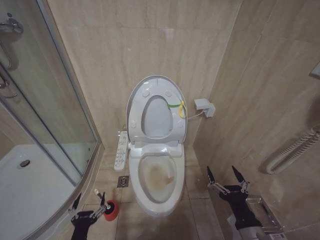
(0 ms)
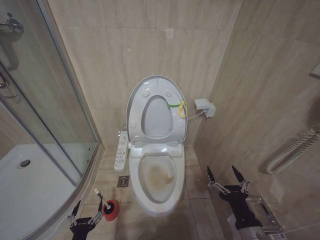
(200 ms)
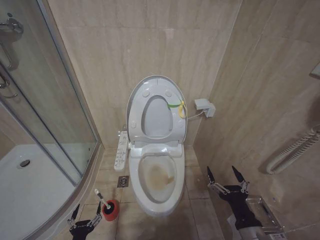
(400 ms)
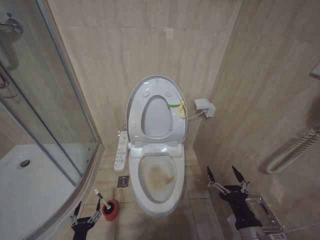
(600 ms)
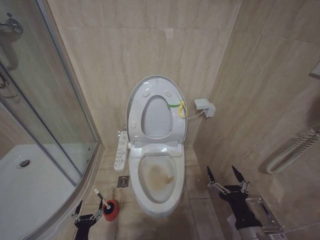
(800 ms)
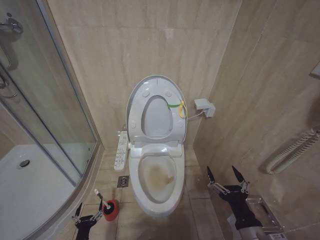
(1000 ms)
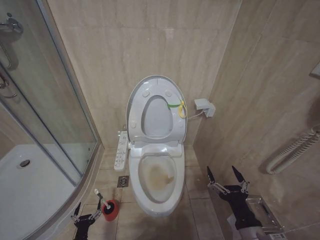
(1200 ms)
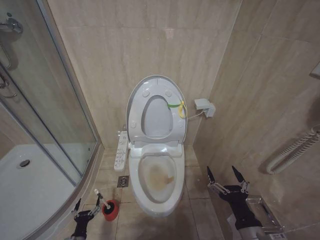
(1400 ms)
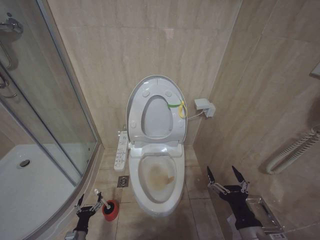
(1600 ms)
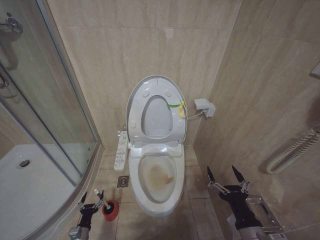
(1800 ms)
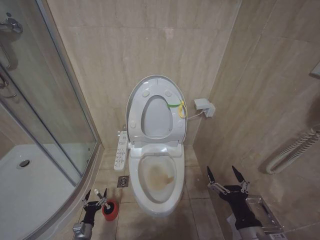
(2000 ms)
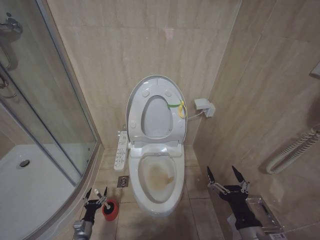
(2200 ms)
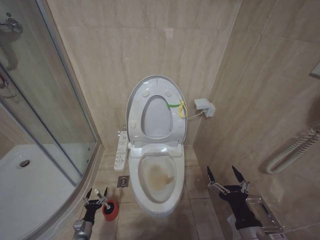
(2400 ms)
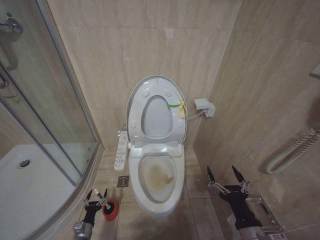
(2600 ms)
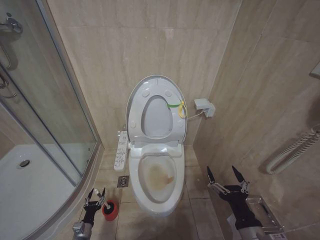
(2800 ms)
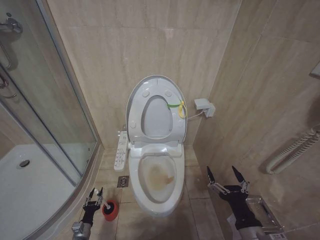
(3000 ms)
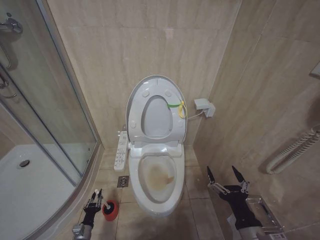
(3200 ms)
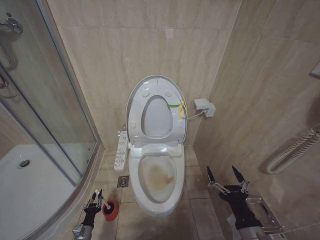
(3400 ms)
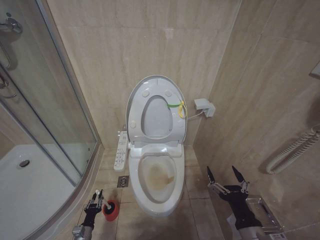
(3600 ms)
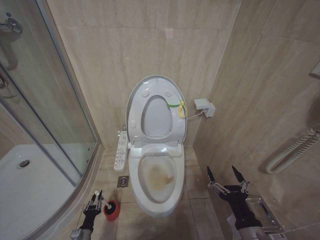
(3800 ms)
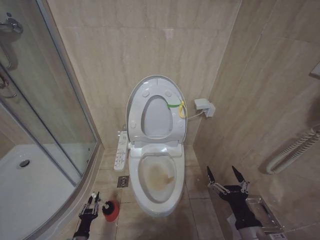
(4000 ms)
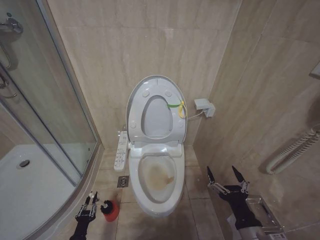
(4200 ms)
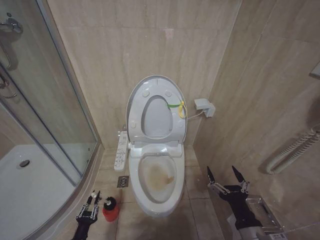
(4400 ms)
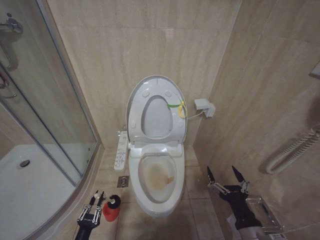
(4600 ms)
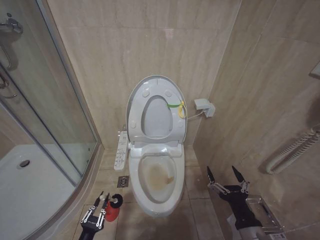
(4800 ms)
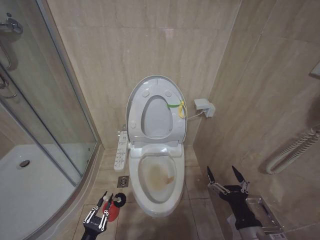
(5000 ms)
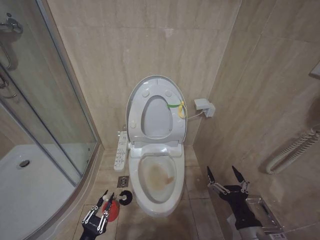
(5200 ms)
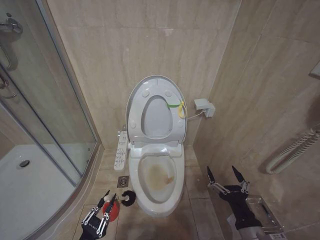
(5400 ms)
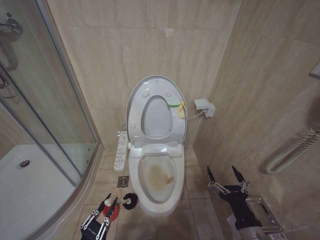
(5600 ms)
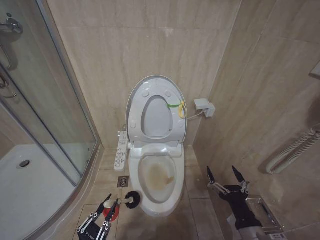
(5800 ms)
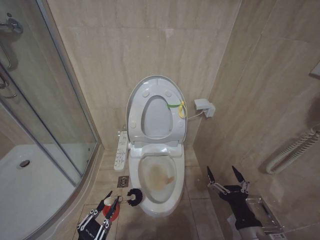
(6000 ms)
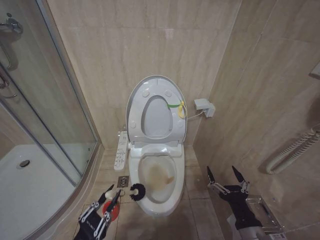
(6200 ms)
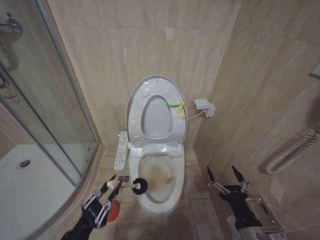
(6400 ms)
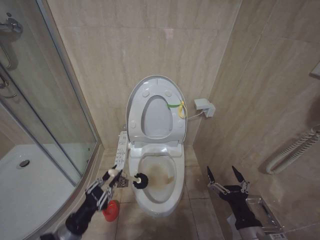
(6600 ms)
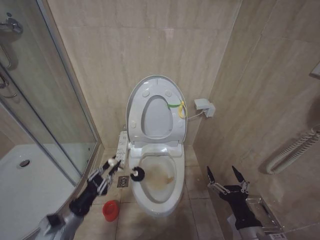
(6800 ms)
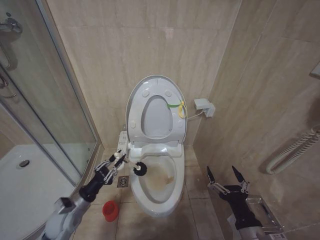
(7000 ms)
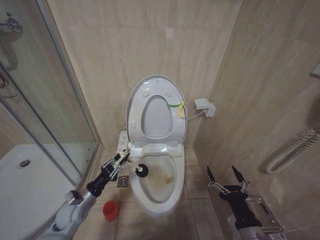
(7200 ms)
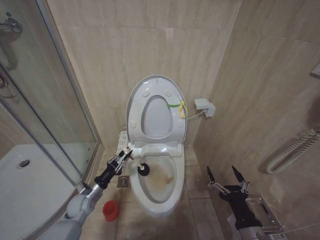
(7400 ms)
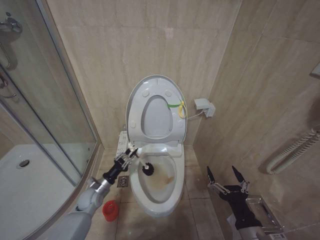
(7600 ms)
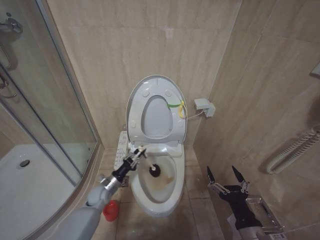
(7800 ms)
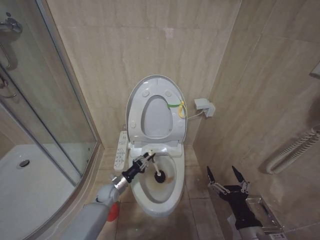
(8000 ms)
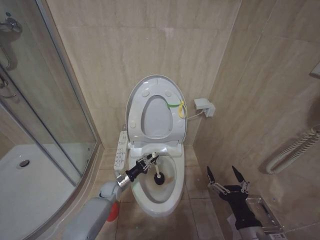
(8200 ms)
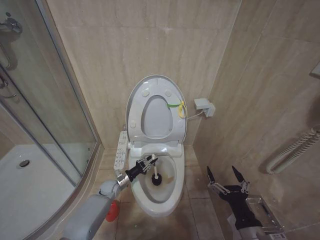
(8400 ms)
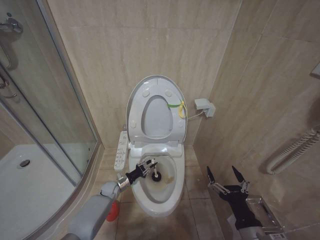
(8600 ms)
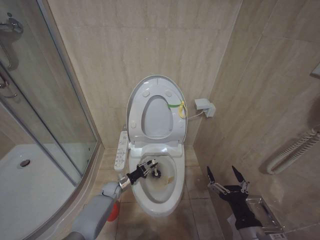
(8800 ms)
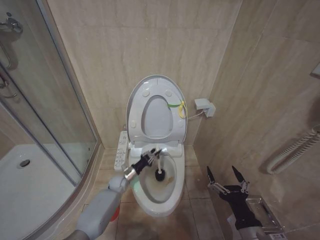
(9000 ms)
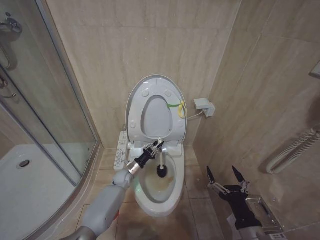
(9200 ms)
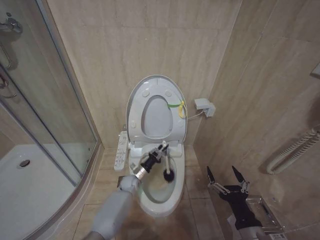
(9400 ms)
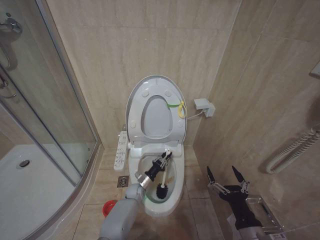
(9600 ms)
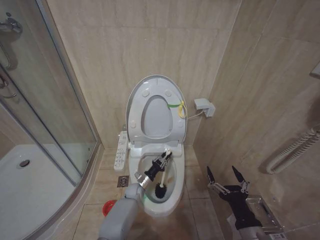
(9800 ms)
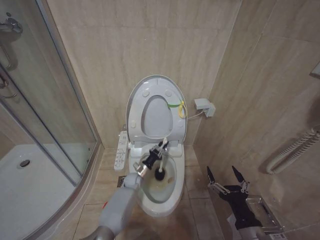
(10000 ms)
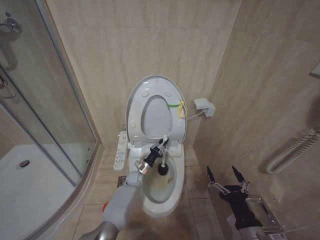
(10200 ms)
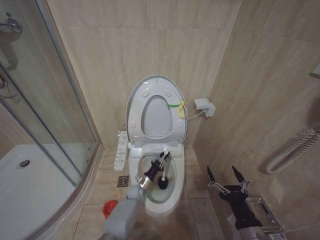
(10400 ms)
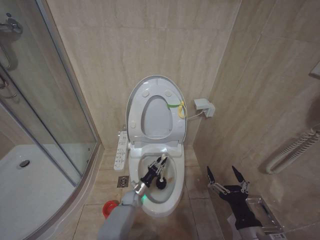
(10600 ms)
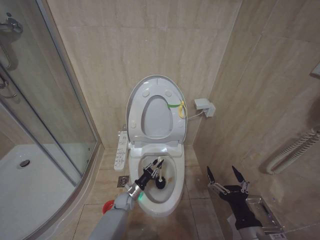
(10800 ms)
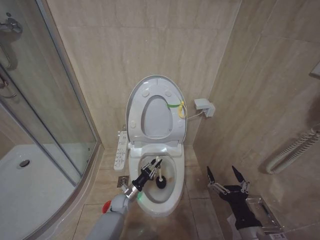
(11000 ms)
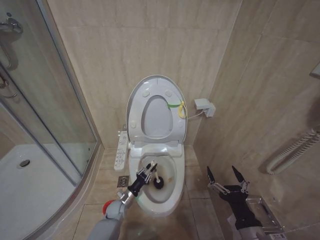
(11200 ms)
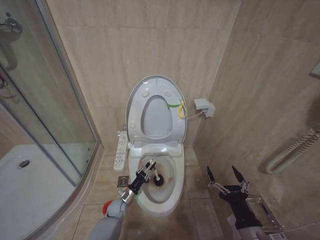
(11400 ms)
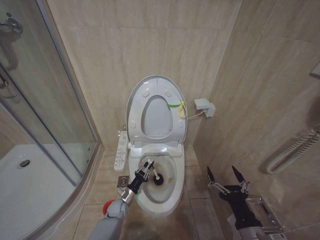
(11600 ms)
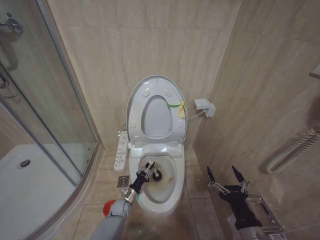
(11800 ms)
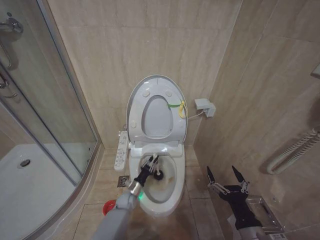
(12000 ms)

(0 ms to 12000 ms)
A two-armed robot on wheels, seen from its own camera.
Task of the whole recording: Open the toilet lid, clean the toilet bowl with a toilet brush, close the toilet lid, and flush.
0 ms - 1600 ms: The left gripper shifts approximately 25 cm downward, to the left and forward.
3000 ms - 4400 ms: The left gripper is displaced backward and upward by some 10 cm, and closes.
4400 ms - 6000 ms: The left gripper shifts approximately 20 cm upward and backward.
6000 ms - 7600 ms: The left gripper goes roughly 30 cm forward.
7600 ms - 9000 ms: The left gripper moves to the right, forward and downward, roughly 15 cm.
9000 ms - 10400 ms: The left gripper heads to the right, covering about 10 cm.
10400 ms - 12000 ms: The left gripper shifts about 10 cm to the left and backward.

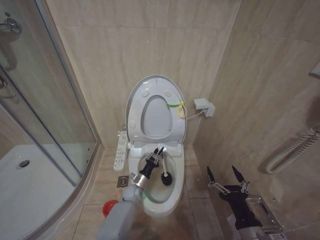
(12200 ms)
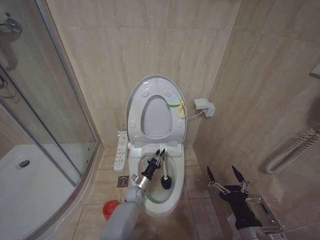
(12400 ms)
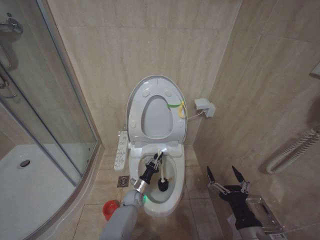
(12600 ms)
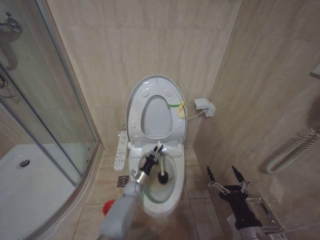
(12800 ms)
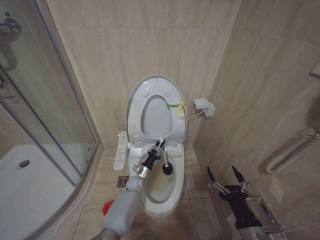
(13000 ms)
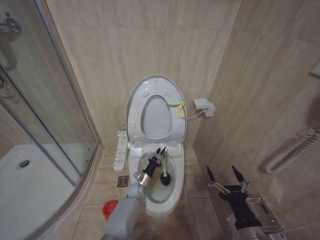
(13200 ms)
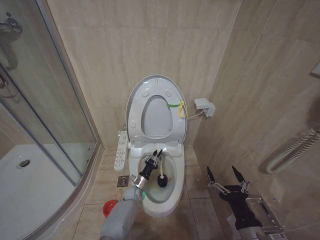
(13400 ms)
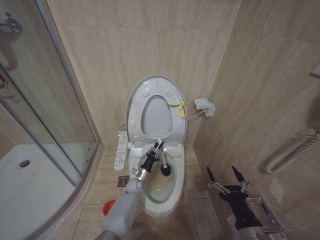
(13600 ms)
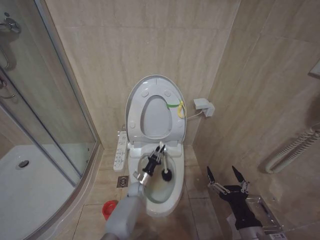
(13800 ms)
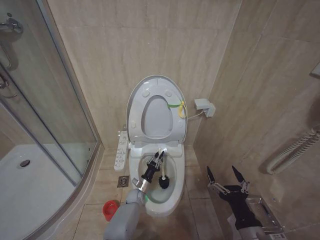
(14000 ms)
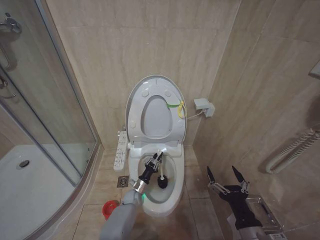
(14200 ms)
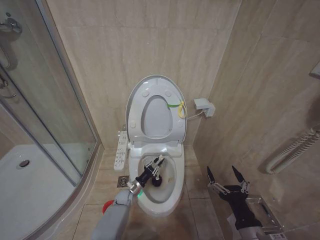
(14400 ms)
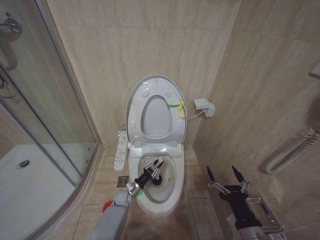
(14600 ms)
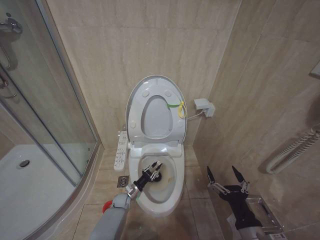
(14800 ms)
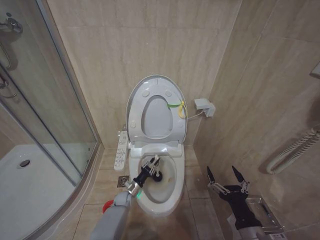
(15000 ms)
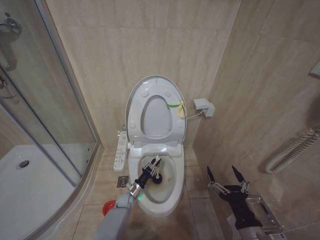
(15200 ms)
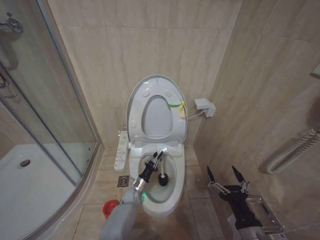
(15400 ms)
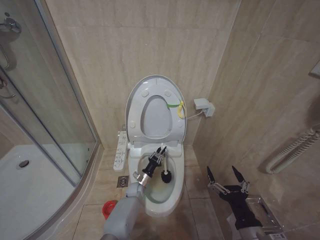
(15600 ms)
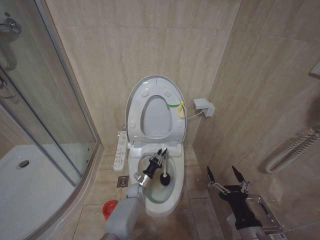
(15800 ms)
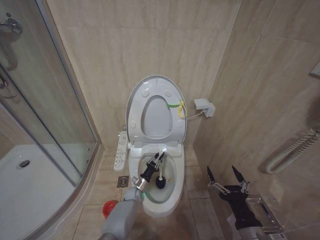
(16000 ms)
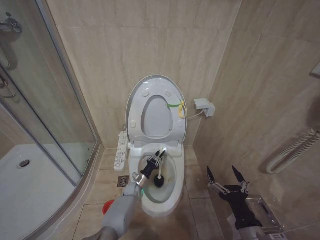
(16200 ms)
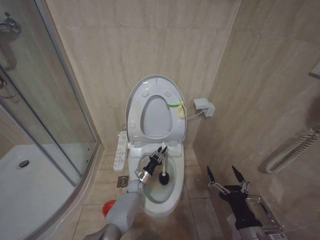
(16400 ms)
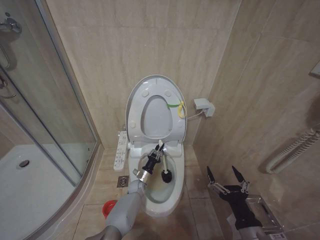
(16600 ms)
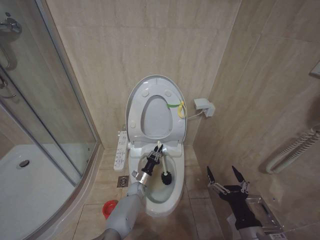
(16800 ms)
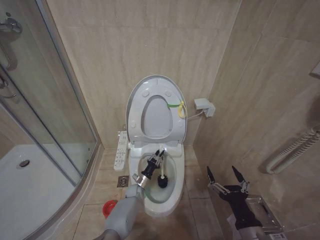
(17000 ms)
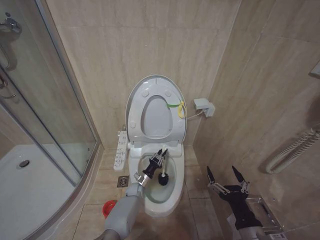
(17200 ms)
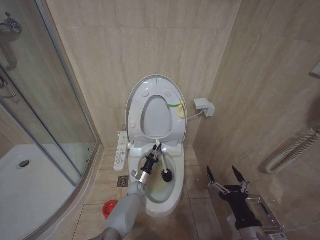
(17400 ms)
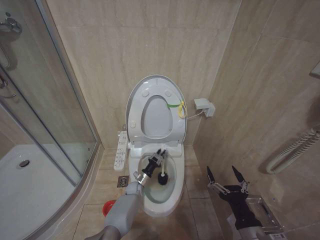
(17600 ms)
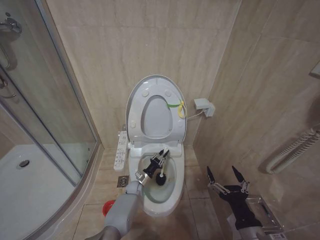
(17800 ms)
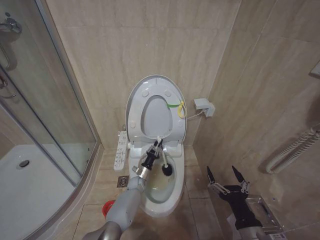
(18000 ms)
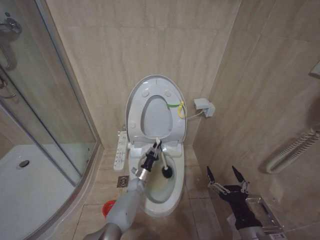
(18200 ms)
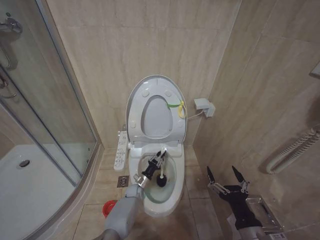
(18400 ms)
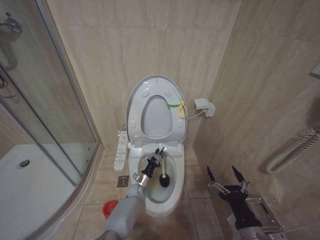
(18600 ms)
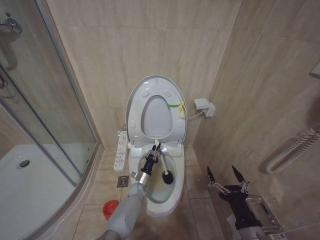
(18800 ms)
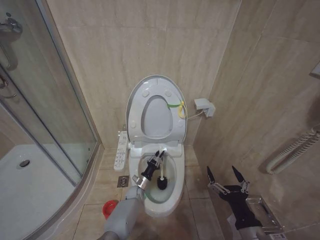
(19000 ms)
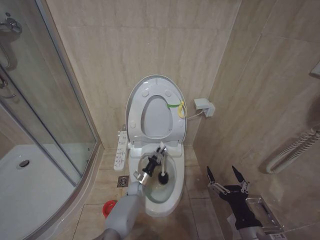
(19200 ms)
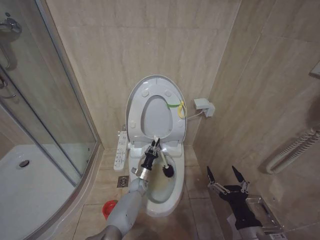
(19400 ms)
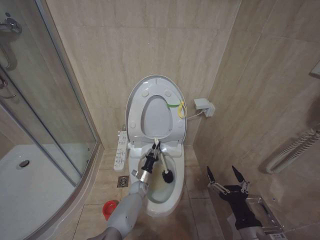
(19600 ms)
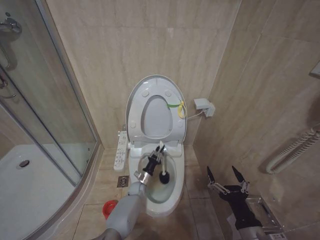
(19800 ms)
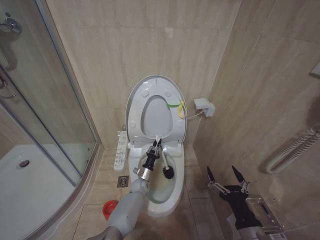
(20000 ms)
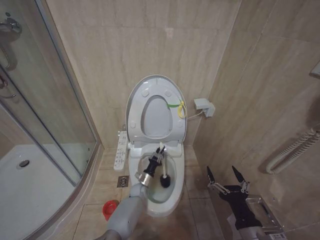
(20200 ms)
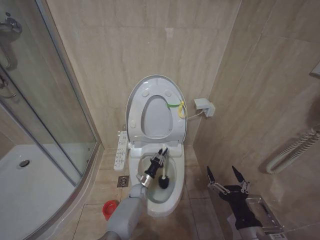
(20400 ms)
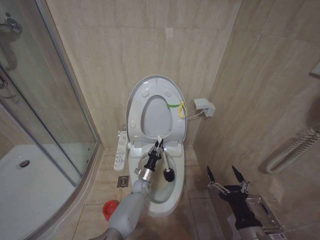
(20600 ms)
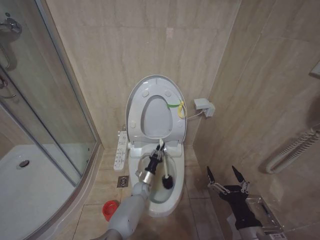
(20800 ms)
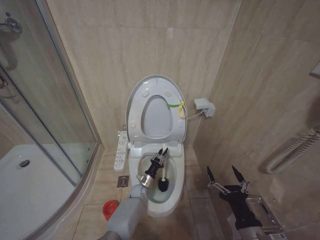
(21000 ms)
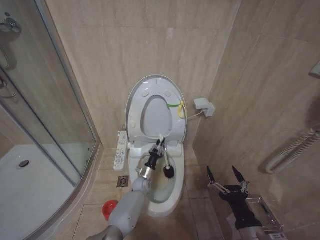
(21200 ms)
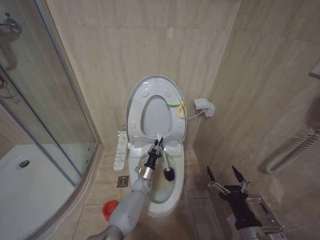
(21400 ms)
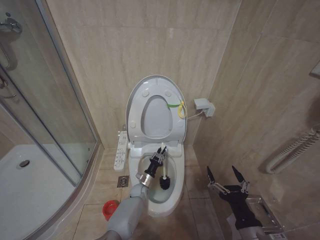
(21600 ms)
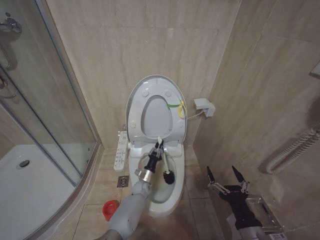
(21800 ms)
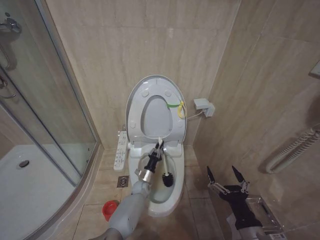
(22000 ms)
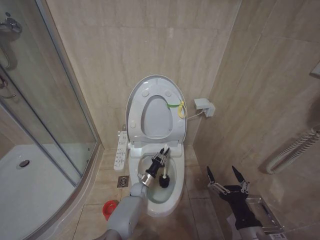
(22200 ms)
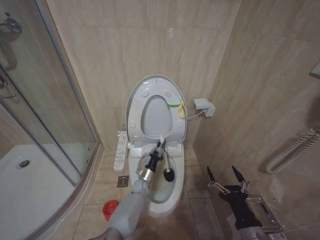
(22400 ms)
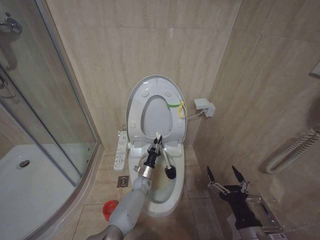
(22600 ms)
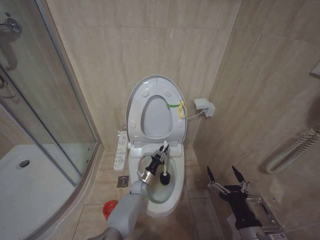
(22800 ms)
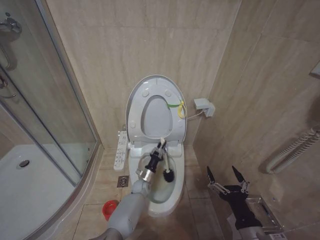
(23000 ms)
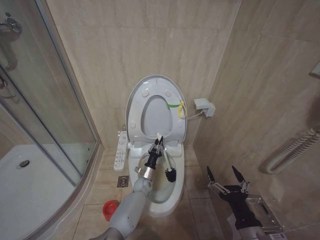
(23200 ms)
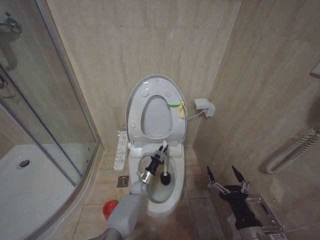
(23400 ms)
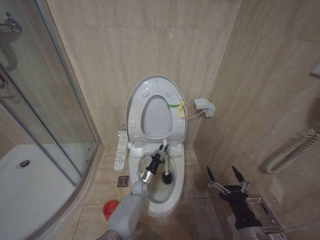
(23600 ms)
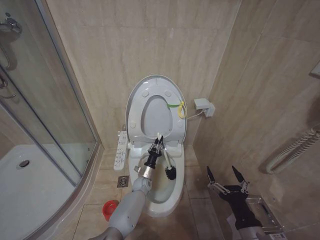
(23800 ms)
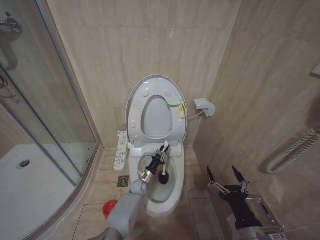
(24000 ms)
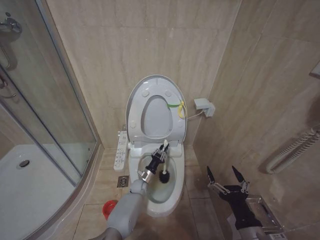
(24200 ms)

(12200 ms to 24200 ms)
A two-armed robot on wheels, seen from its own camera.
Task of the whole recording: Open the toilet lid, clean the toilet bowl with a toilet brush, close the toilet lid, and flush.
12200 ms - 13800 ms: There are only small adjustments of the grippers.
13800 ms - 15200 ms: The left gripper goes about 5 cm to the left.
15200 ms - 16600 ms: The left gripper shifts about 5 cm to the right.
18200 ms - 21200 ms: The grippers move only a little.
